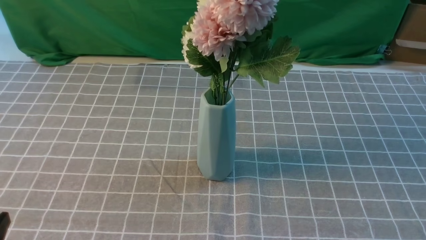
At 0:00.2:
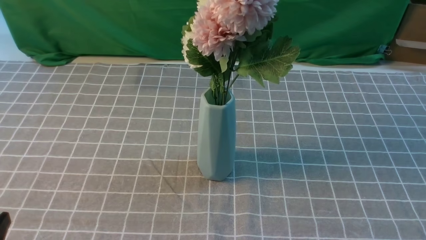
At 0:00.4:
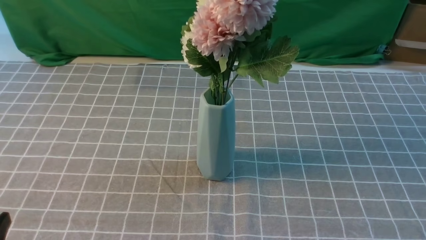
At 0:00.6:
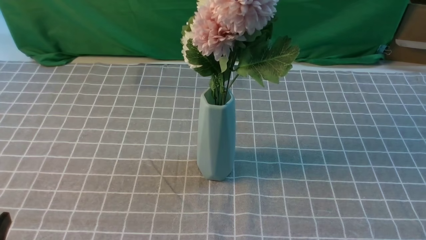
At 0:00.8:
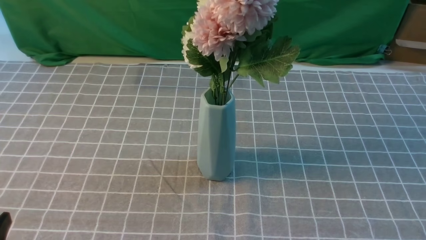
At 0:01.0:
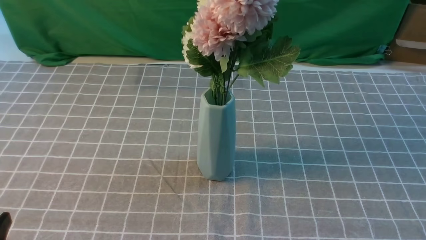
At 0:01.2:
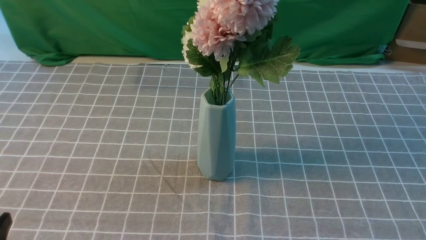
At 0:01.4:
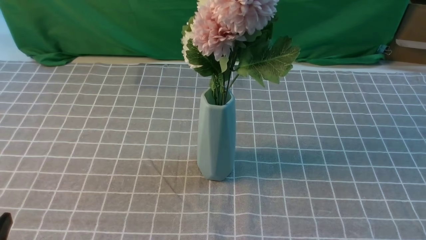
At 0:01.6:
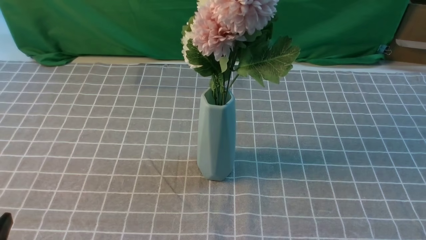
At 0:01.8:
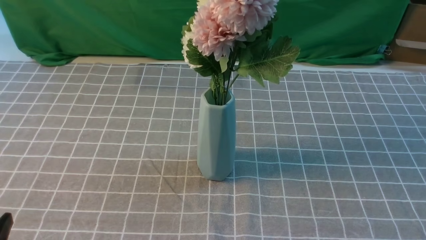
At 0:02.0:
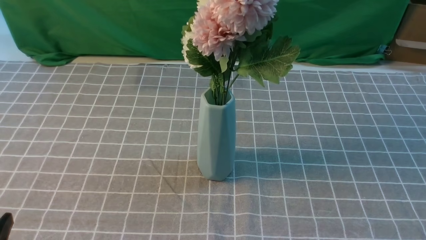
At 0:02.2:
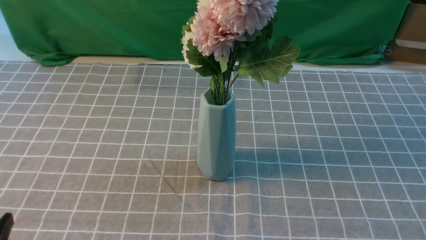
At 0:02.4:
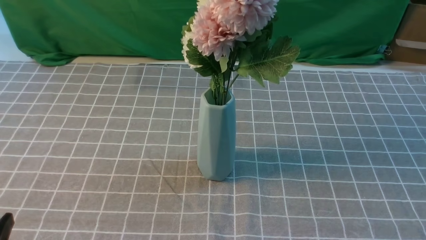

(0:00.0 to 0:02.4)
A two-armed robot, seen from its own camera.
Task of the whole recording: insert the flowers into the vase on the table with the grey tablecloth.
0:01.2 - 0:02.4: The two grippers keep their place.
